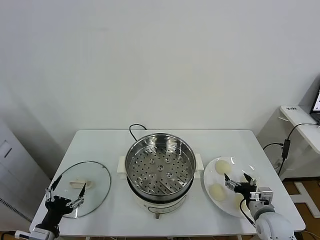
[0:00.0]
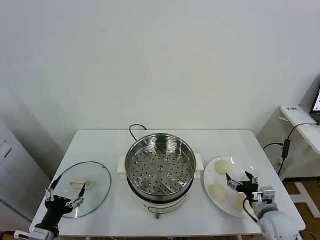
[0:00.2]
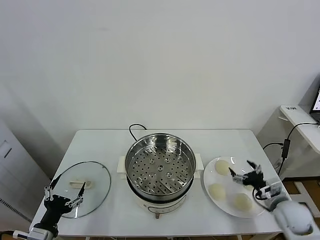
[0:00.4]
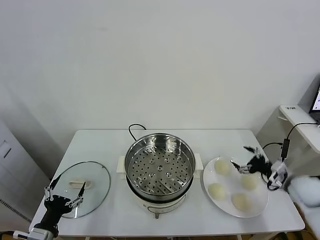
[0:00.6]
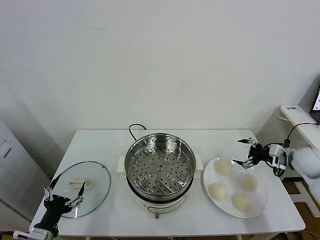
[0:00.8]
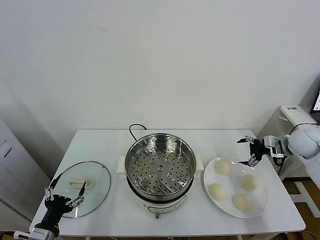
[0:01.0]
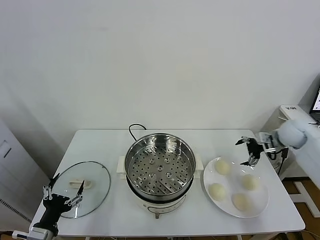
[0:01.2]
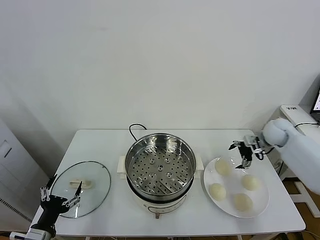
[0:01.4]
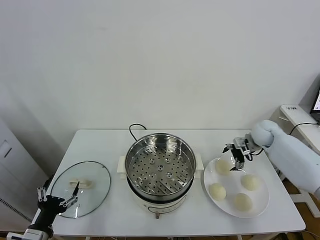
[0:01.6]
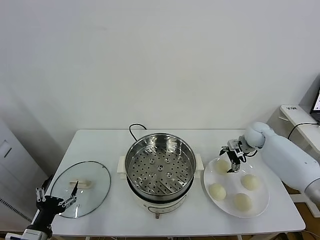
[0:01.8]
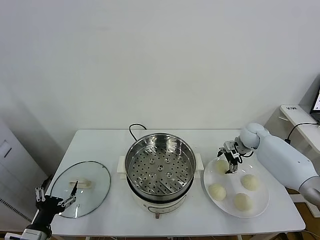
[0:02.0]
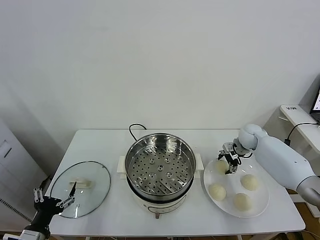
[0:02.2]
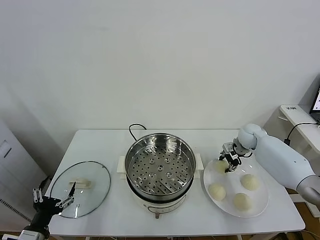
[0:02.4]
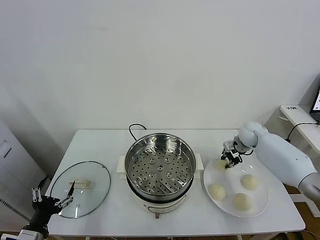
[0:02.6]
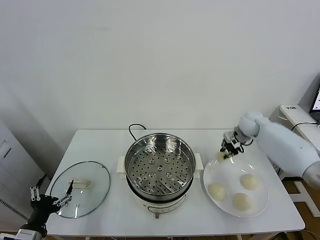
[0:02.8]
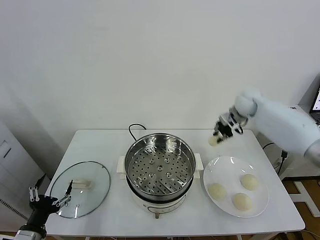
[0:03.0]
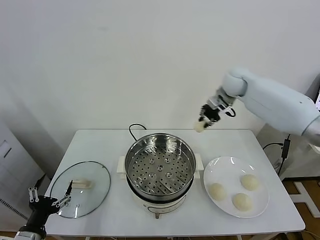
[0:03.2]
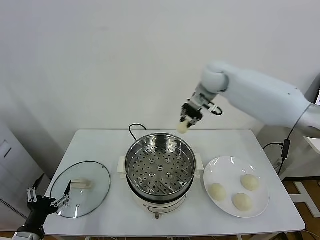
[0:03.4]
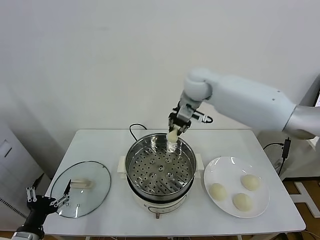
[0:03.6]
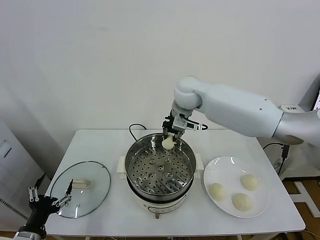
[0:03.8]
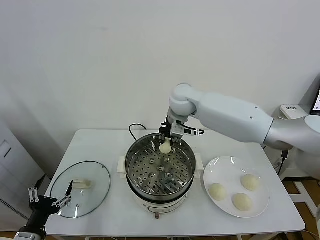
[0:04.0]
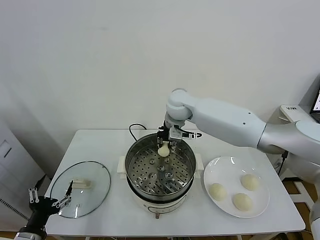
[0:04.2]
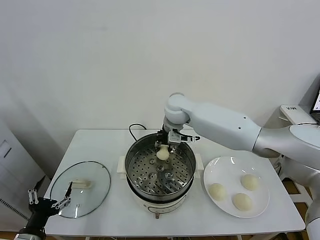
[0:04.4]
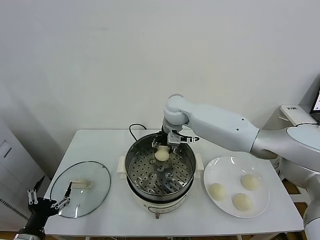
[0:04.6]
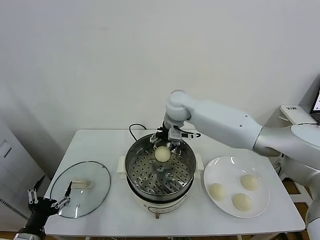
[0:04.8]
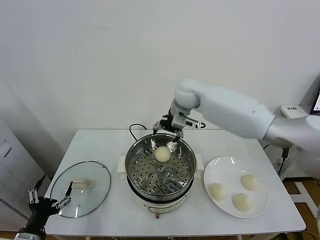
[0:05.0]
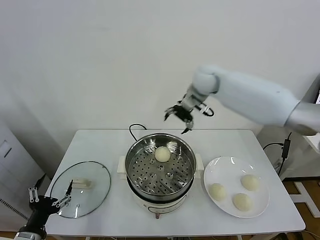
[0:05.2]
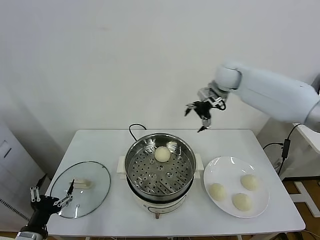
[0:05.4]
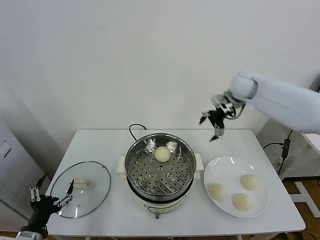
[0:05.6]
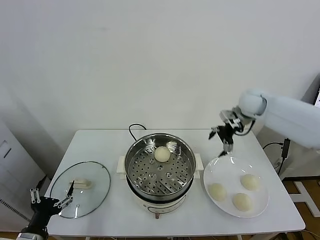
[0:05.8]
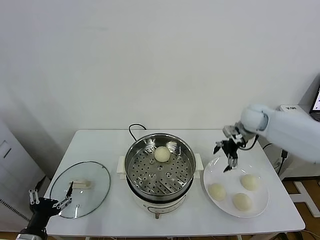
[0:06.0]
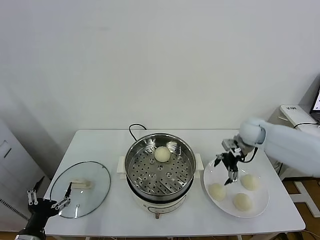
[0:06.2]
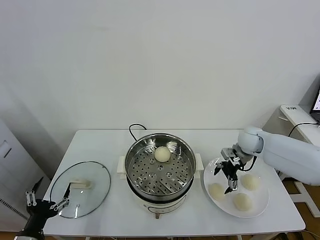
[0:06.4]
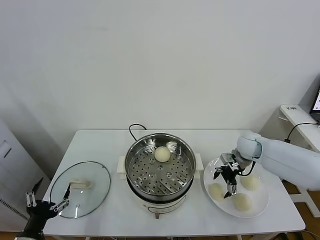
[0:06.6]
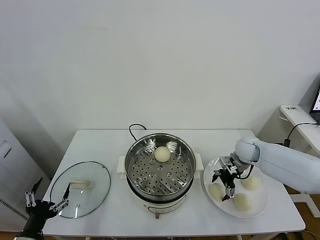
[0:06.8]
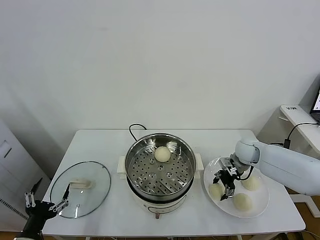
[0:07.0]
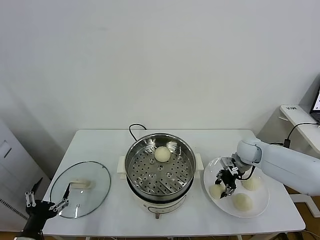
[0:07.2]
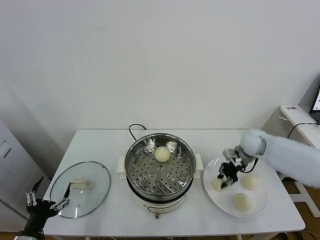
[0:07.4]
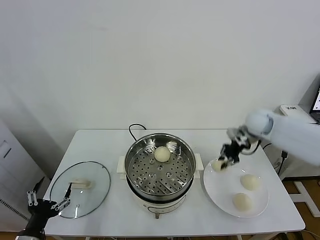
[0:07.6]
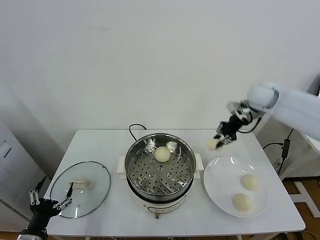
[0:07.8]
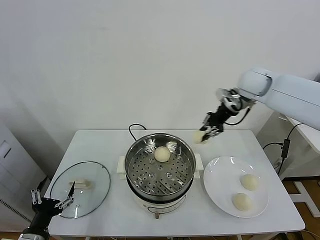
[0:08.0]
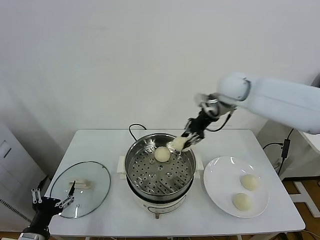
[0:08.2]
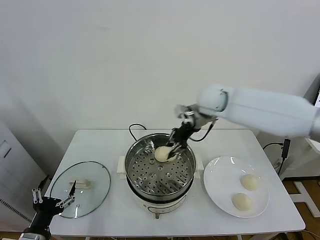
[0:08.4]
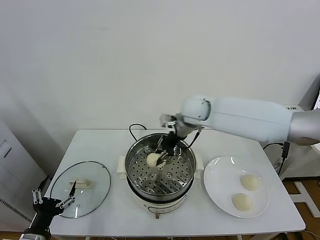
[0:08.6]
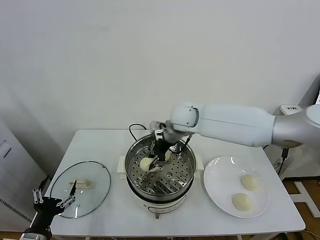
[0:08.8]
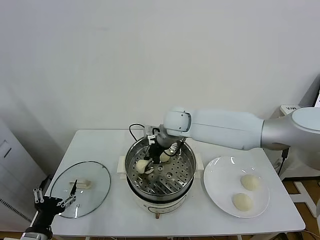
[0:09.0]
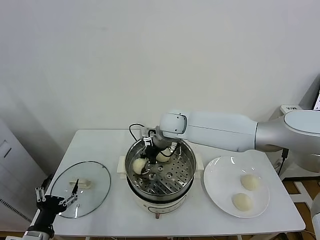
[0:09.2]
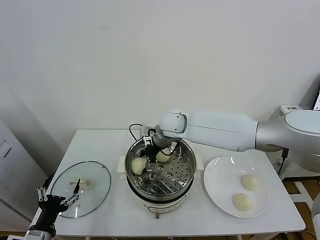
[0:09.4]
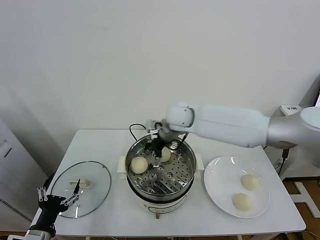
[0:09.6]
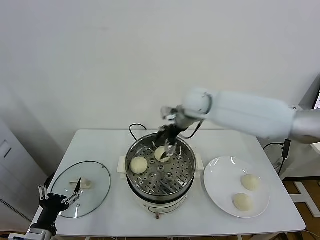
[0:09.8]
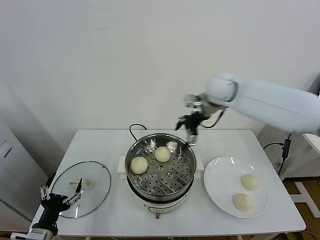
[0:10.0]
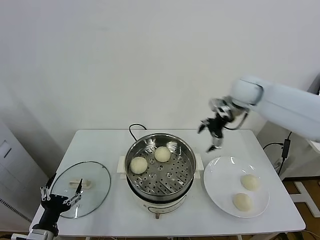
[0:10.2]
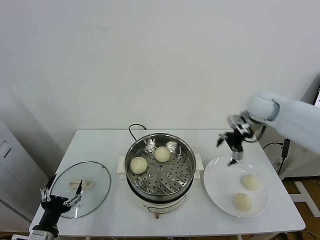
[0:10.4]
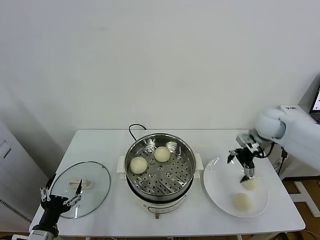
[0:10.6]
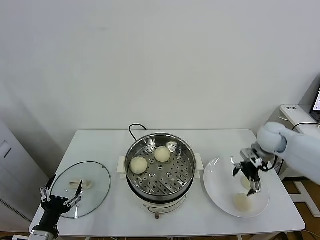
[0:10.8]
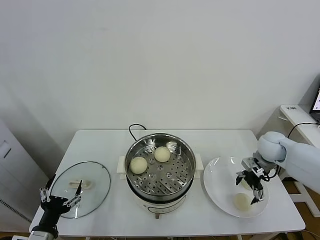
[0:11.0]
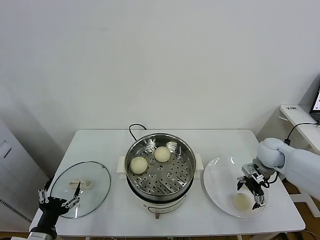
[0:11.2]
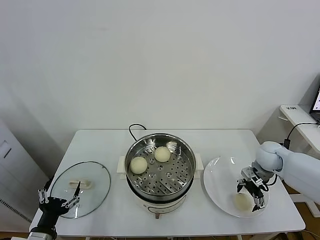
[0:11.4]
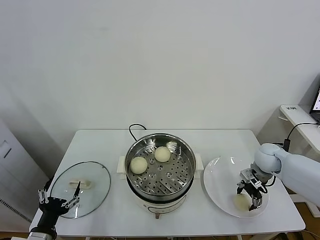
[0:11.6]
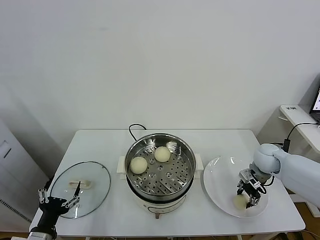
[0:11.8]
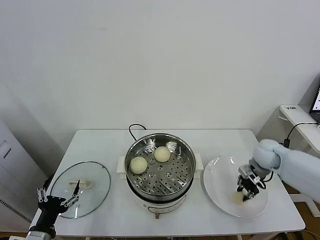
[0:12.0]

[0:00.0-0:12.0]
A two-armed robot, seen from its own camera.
Task of the whole recording: take steamed baozi put them in steamer.
Step, 0:00.0 to 0:02.2: Grasp the baozi in the plate with right gripper.
Step, 0:02.4 to 0:04.8: Place the baozi on the steamer with right gripper.
Step, 0:05.0 to 0:06.8: Grasp the baozi in the plate with right gripper.
Step, 0:07.2 to 0:09.4: Place the baozi on the steamer with right gripper.
Step, 0:09.6 to 0:11.6: Grasp the baozi in the plate with right gripper.
0:01.6 to 0:03.0: The right gripper is displaced upward and to the left by about 20 cm, and closes.
0:03.0 to 0:04.4: The right gripper heads to the left, covering roughly 25 cm, and opens.
0:04.4 to 0:06.0: The right gripper is displaced to the right by approximately 30 cm, and opens its fingers.
0:06.0 to 0:07.6: The right gripper goes some 5 cm upward, and closes its fingers.
0:07.6 to 0:09.0: The right gripper goes roughly 30 cm to the left.
0:09.0 to 0:10.4: The right gripper is displaced to the right by roughly 30 cm, and opens up.
0:10.4 to 0:12.0: The right gripper heads downward, covering some 15 cm, and closes its fingers.

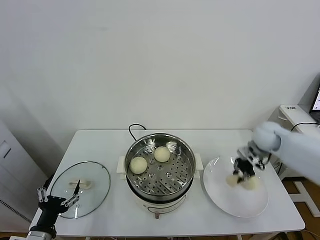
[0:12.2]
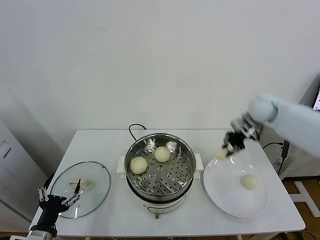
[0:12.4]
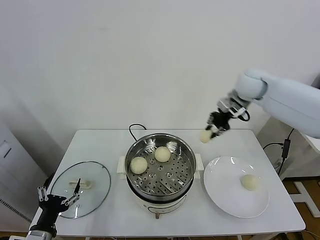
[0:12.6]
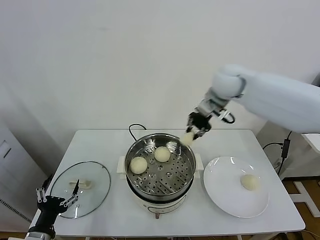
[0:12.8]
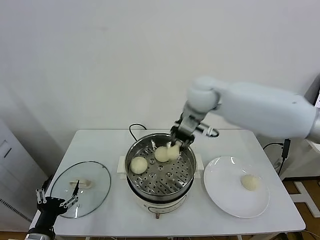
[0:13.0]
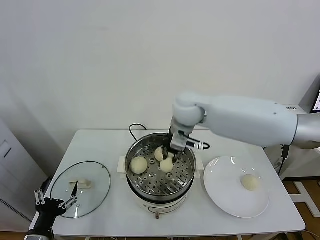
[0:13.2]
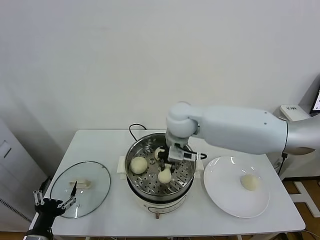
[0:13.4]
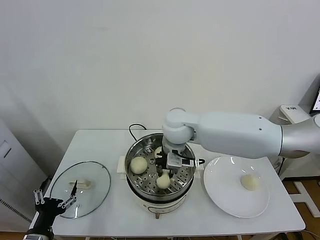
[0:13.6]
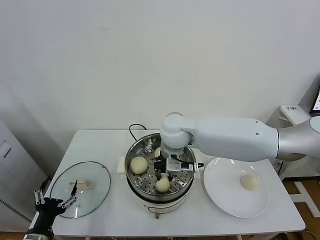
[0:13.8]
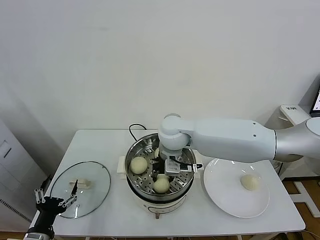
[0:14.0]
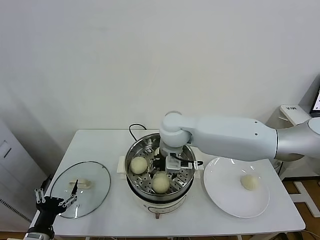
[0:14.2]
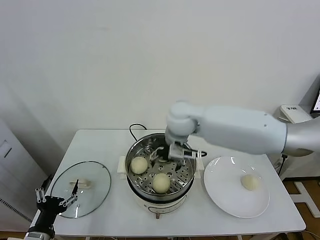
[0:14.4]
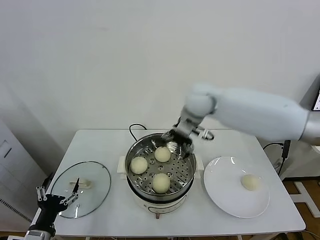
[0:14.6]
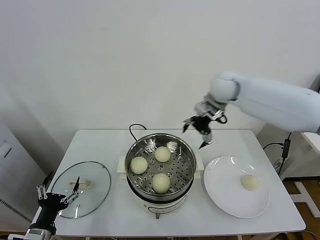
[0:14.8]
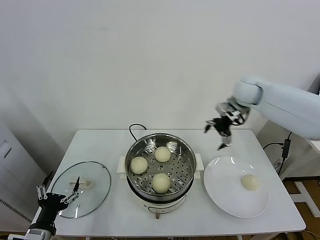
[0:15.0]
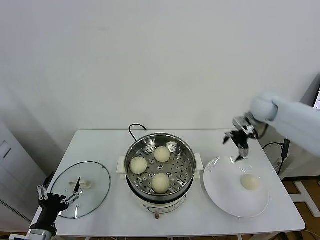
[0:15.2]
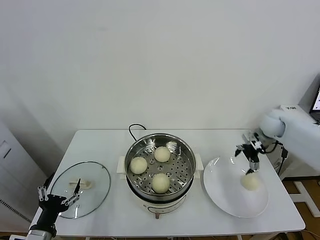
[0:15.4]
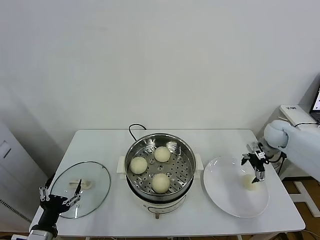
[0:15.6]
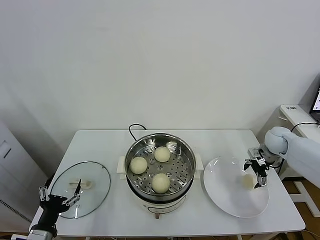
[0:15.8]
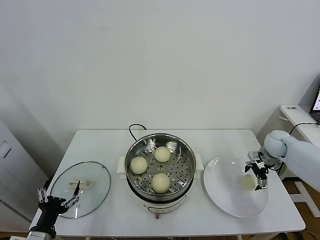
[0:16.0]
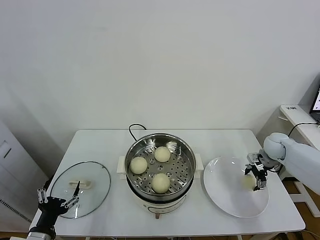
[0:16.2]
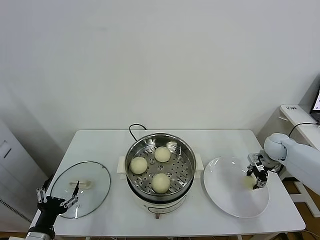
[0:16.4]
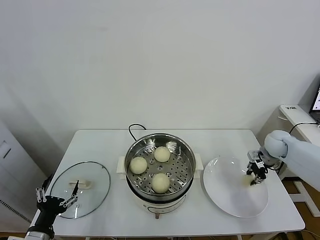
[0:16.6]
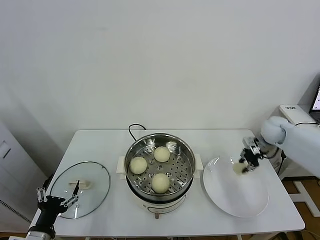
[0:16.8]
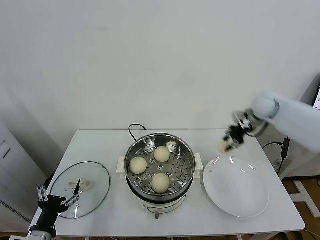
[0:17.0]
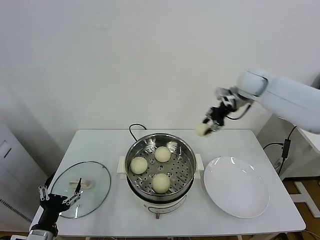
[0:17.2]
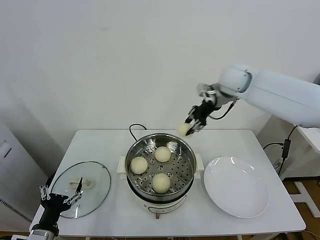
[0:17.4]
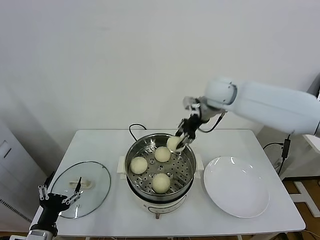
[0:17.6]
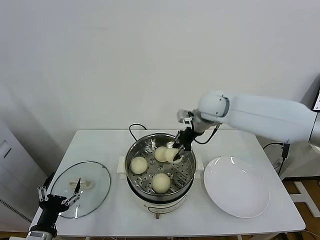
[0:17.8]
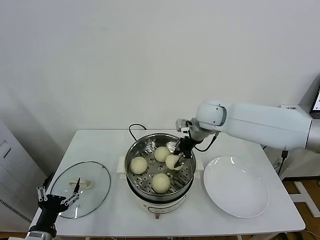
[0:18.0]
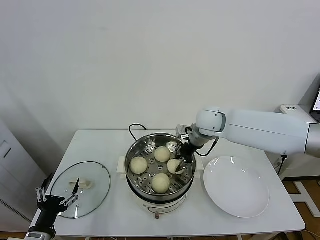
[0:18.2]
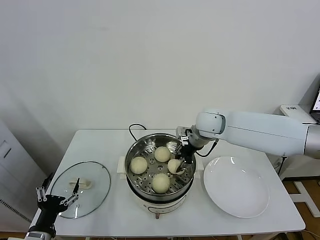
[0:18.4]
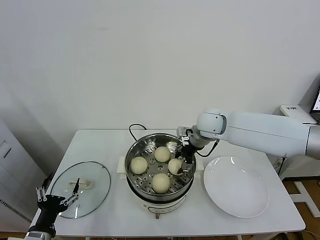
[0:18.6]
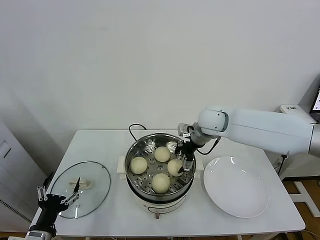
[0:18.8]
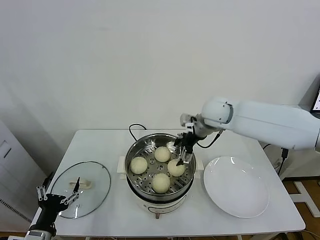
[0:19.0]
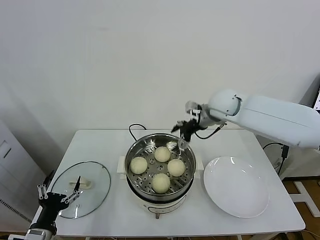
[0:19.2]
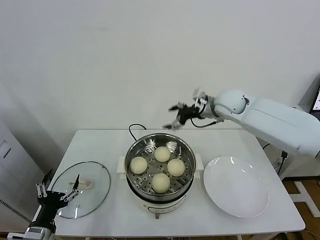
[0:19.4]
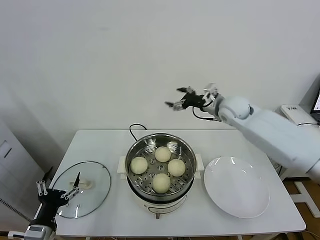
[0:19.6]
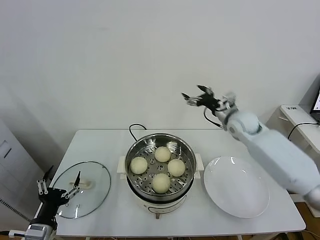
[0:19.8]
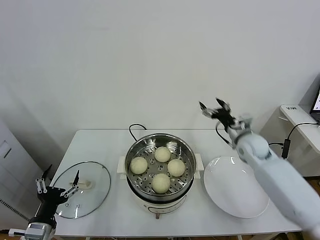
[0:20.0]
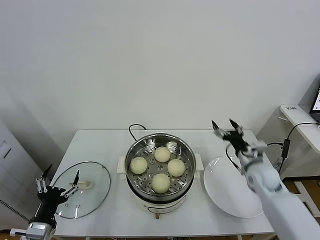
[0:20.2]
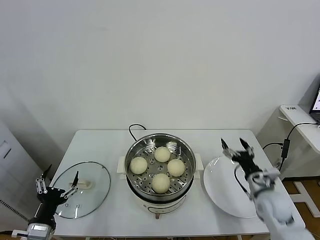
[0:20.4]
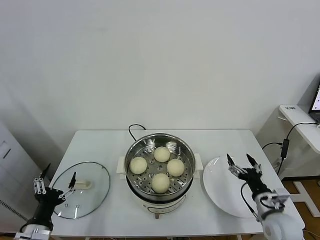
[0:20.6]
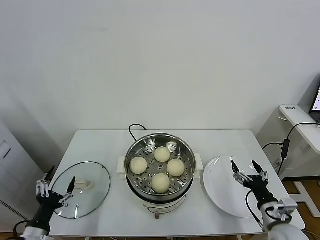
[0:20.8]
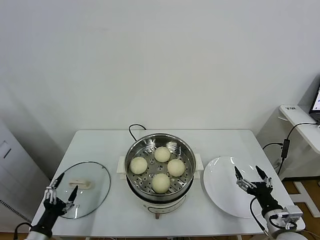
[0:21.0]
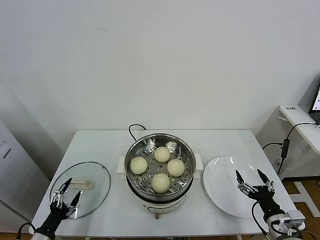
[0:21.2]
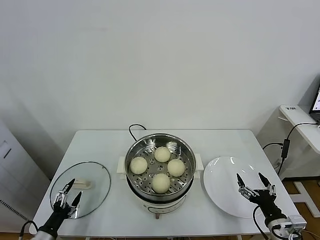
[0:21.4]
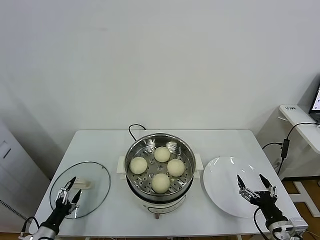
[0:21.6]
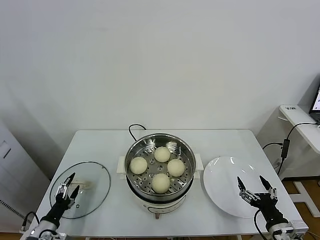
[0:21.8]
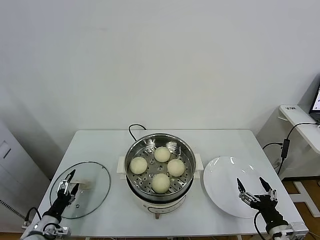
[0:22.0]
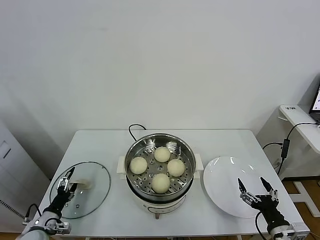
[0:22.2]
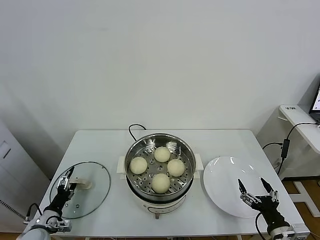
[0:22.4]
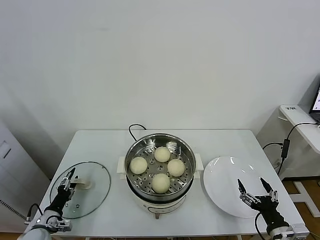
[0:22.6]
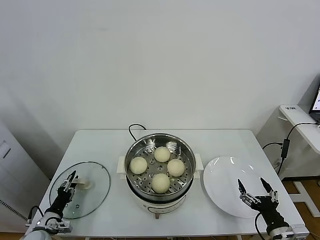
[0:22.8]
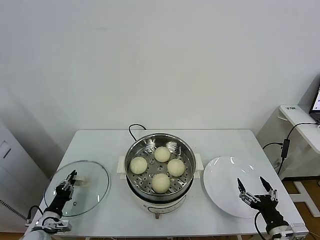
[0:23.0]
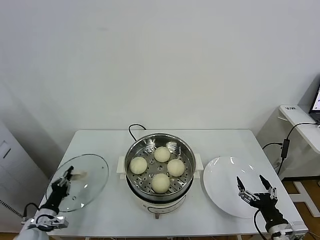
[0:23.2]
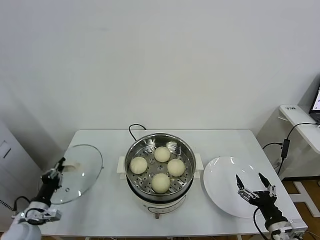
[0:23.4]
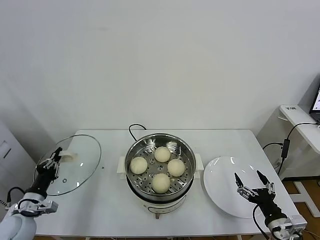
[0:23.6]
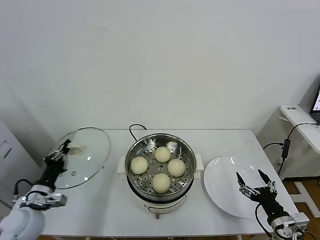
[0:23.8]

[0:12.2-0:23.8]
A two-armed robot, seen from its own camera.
Task of the whole recording: take steamed baozi put them in steamer.
Step, 0:12.2 to 0:14.2: Place the baozi on the steamer with right gripper.
Step, 0:14.4 to 0:16.2: Grasp the baozi in the plate with right gripper.
Step, 0:16.4 to 0:18.8: Place the baozi on the steamer with right gripper.
Step, 0:19.0 to 0:23.2: Grasp the pot lid with left gripper.
0:12.2 to 0:13.6: The right gripper shifts some 35 cm to the left.
0:13.6 to 0:15.0: The right gripper travels to the right and forward by roughly 30 cm, and opens its fingers.
0:15.0 to 0:16.6: The right gripper goes some 25 cm downward and to the right, and closes its fingers.
0:16.6 to 0:18.0: The right gripper moves to the left and upward, about 30 cm.
0:18.0 to 0:19.4: The right gripper moves to the right, approximately 5 cm, and opens up.
0:19.4 to 0:21.0: The right gripper heads backward, downward and to the right, covering roughly 40 cm; the left gripper moves downward and to the left, roughly 10 cm.
0:21.0 to 0:22.4: The left gripper moves forward and downward, about 10 cm.
0:22.4 to 0:23.8: The left gripper is displaced upward by about 15 cm, and closes up.
